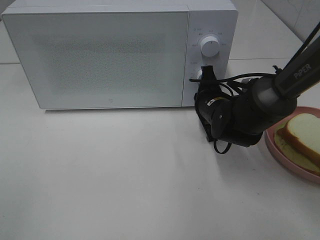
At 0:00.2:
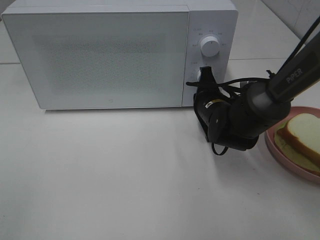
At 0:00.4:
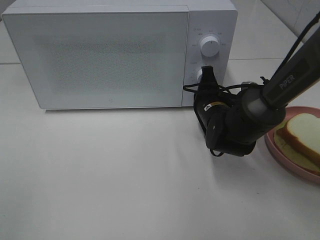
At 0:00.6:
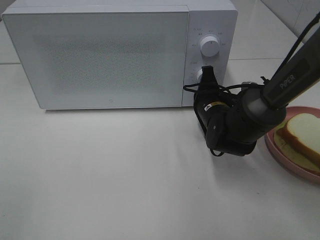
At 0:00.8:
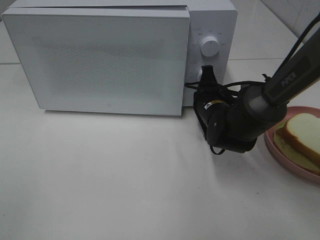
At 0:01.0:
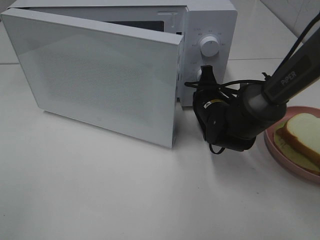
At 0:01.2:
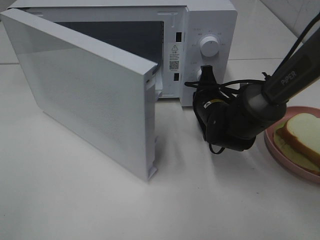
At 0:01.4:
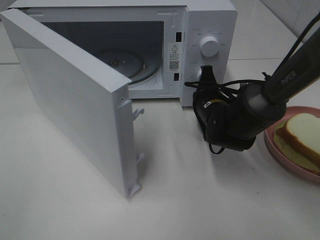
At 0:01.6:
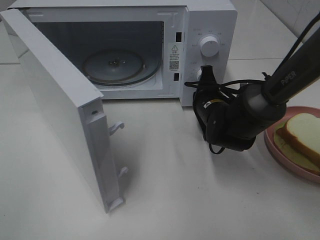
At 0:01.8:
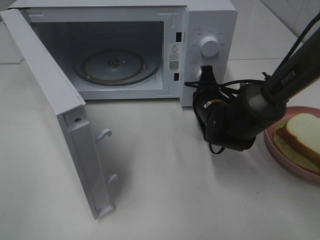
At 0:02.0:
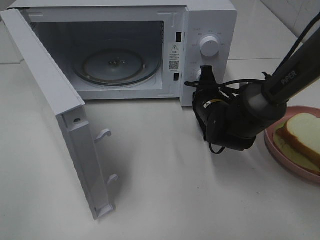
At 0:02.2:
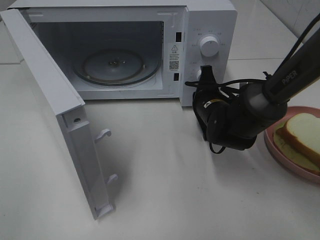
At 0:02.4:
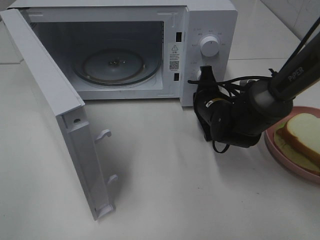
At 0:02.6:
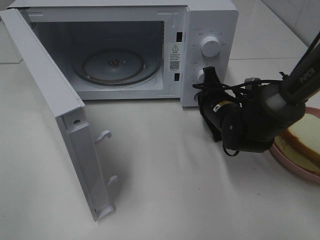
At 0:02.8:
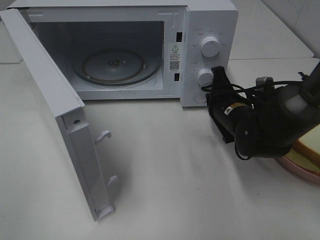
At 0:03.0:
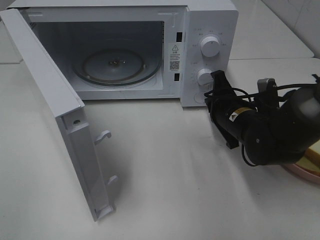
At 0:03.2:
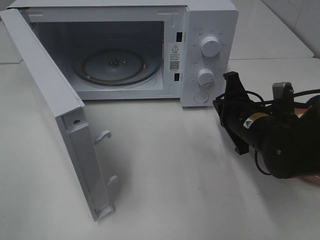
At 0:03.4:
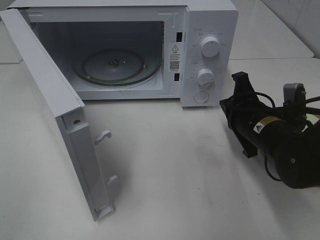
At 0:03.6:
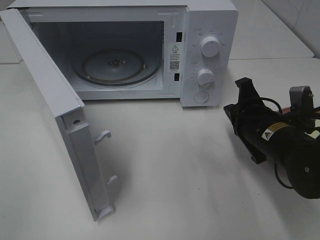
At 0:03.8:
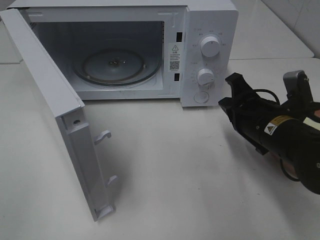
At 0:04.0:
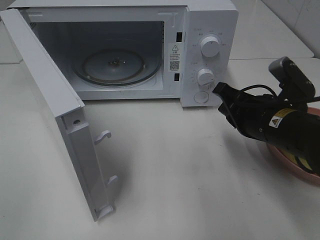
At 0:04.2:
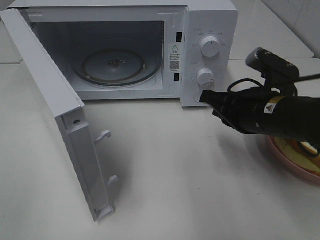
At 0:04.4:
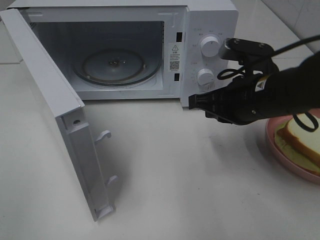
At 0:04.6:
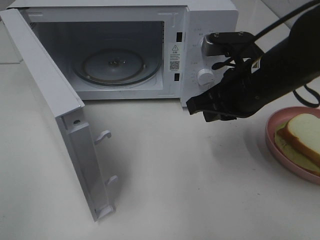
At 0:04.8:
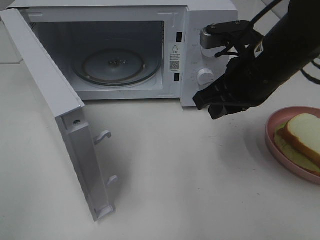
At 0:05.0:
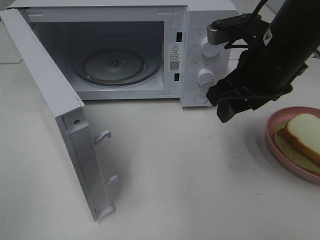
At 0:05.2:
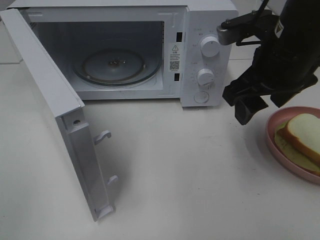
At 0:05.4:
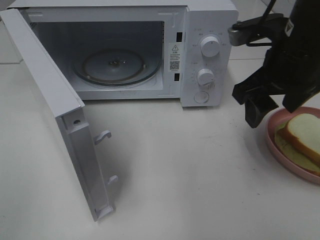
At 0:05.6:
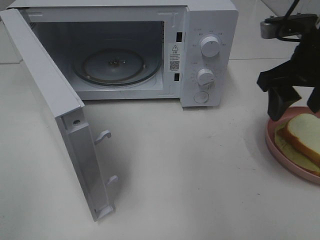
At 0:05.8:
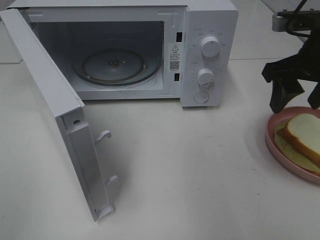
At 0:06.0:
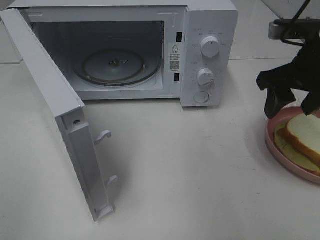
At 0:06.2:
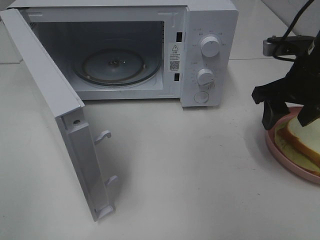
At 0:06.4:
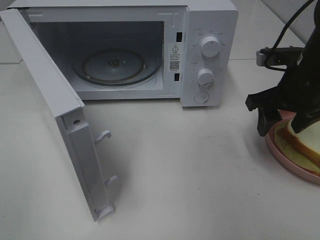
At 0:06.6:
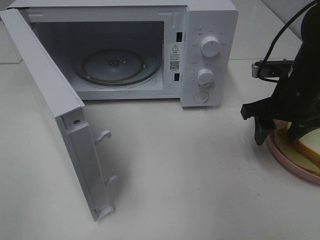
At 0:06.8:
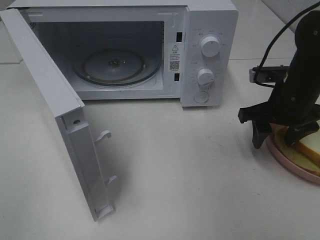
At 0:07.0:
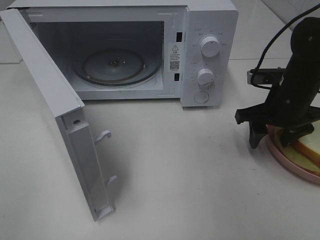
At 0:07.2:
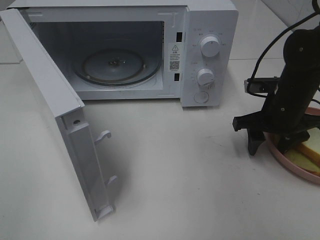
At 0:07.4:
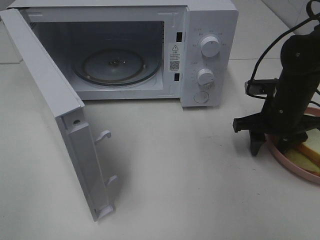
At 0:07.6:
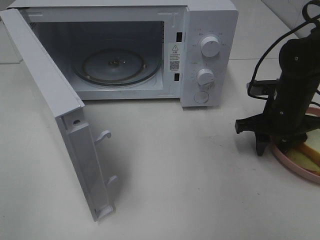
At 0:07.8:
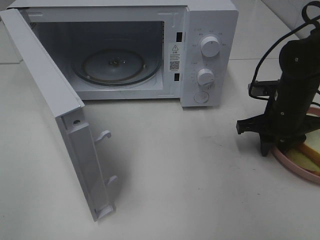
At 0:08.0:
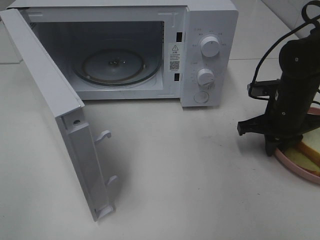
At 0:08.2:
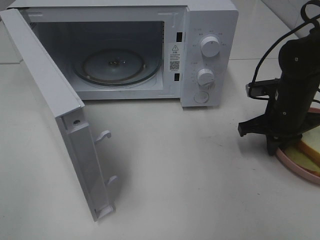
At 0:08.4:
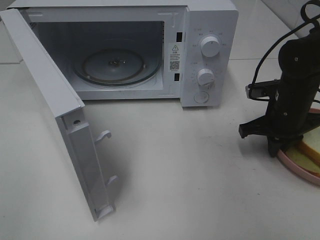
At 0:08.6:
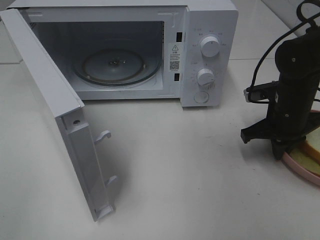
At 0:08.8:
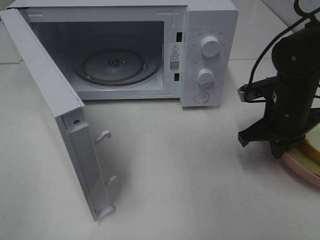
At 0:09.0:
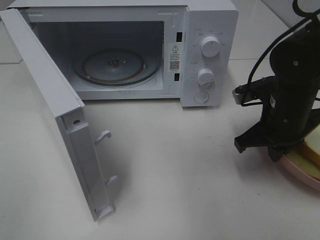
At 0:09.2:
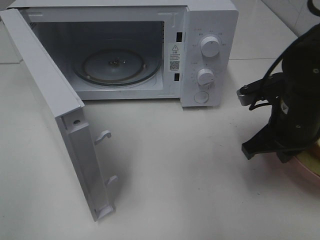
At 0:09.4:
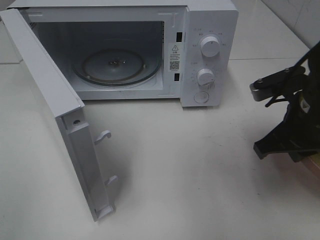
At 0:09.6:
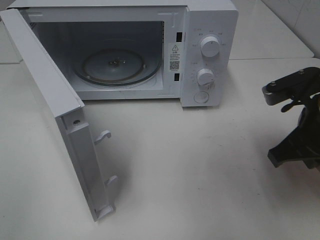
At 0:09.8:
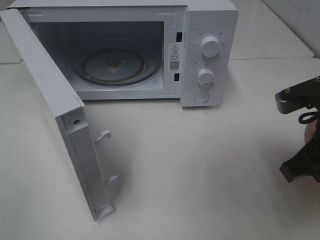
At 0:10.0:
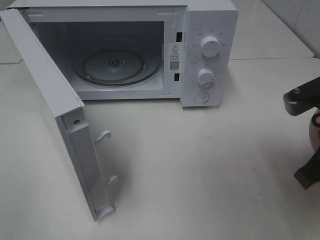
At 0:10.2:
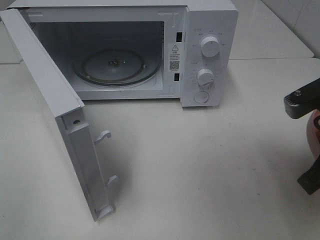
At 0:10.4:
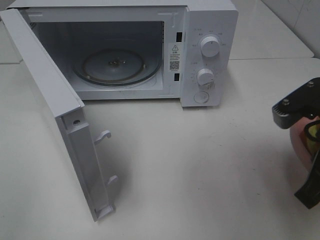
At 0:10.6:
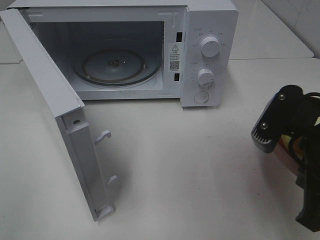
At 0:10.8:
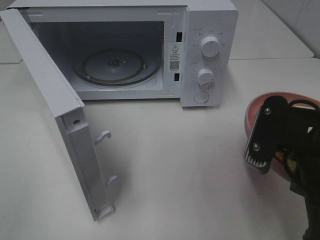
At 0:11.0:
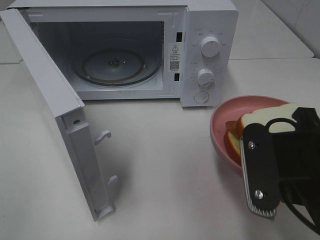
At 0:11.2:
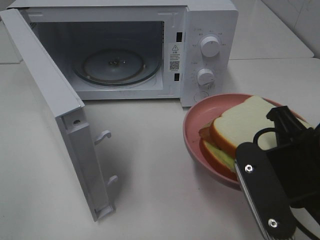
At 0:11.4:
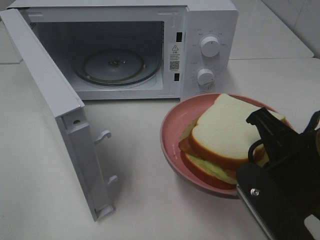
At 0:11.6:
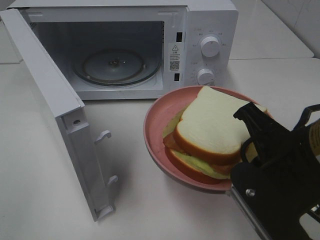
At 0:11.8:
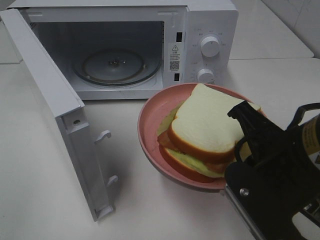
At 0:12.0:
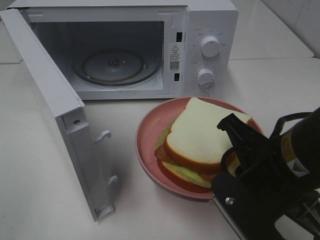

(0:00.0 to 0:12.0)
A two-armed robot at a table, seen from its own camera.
Task of the whole recording: Heat Sandwich.
Step, 0:00.0 - 0:03.0: Right hand: press the switch.
Step, 0:03.2 - 0:08.0: Right hand: grab the plate with the sandwich.
0:01.6 - 0:03.0: The right gripper shifts by roughly 5 cm.
0:03.0 - 0:04.4: The right gripper heads upward, covering roughly 10 cm.
0:04.4 - 0:06.0: The right gripper goes about 10 cm to the right and upward, and opens its fingers.
0:06.0 - 0:07.6: The right gripper travels downward by about 15 cm.
0:07.6 - 0:09.0: The right gripper travels backward by roughly 5 cm, and closes up.
0:09.0 - 0:10.4: The right gripper travels backward and upward by some 15 cm.
0:10.4 - 0:12.0: The right gripper travels to the left by roughly 10 cm.

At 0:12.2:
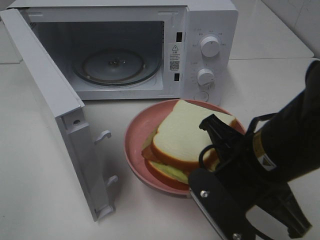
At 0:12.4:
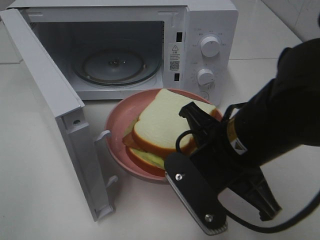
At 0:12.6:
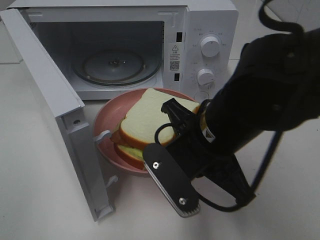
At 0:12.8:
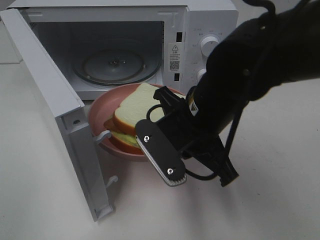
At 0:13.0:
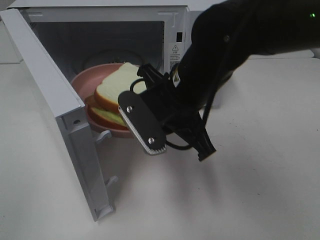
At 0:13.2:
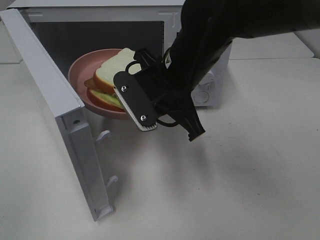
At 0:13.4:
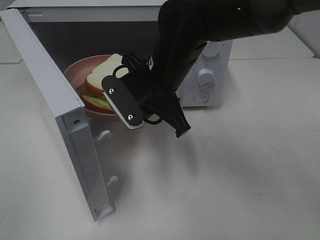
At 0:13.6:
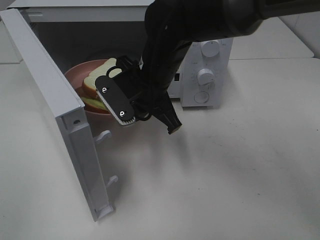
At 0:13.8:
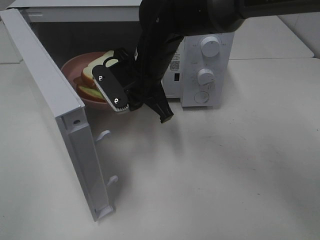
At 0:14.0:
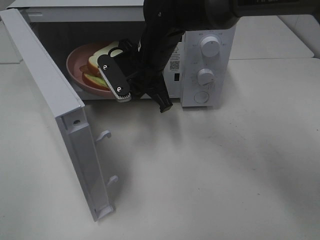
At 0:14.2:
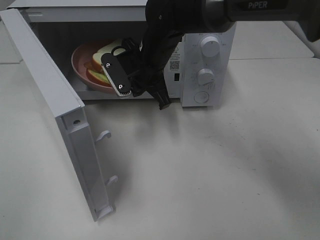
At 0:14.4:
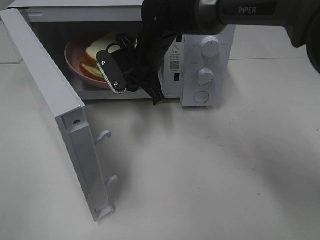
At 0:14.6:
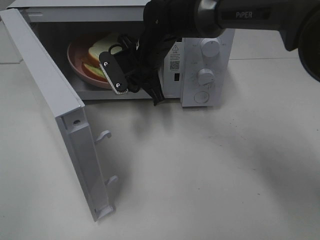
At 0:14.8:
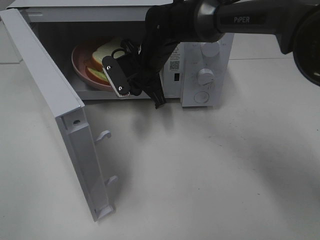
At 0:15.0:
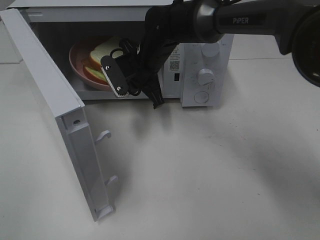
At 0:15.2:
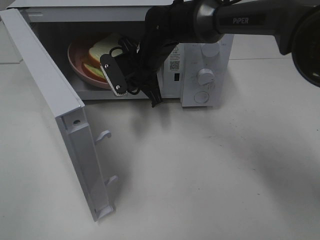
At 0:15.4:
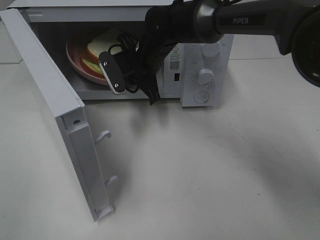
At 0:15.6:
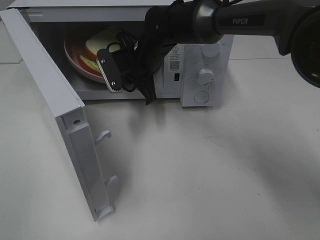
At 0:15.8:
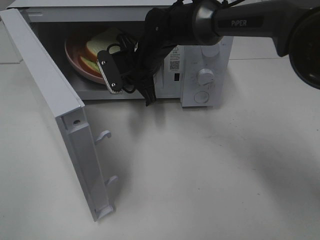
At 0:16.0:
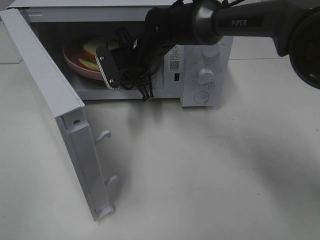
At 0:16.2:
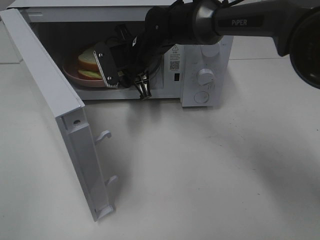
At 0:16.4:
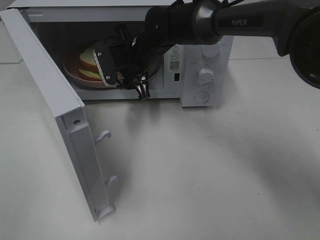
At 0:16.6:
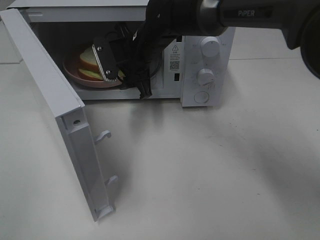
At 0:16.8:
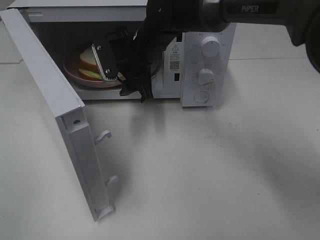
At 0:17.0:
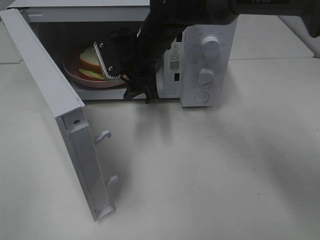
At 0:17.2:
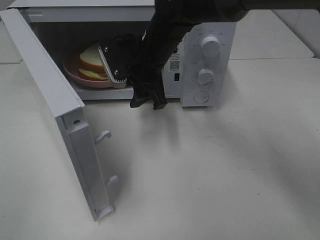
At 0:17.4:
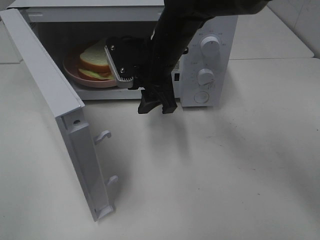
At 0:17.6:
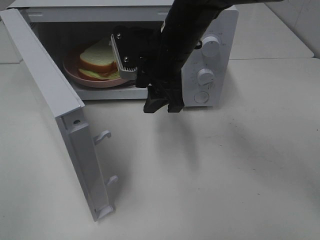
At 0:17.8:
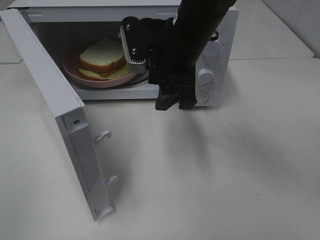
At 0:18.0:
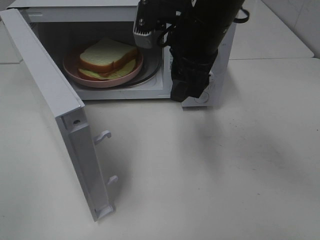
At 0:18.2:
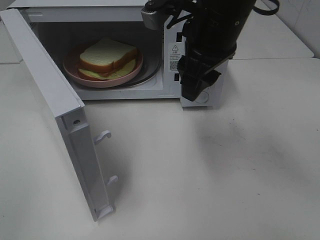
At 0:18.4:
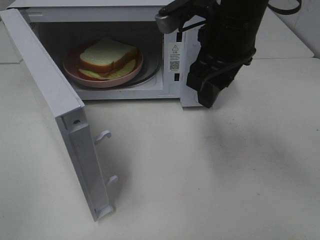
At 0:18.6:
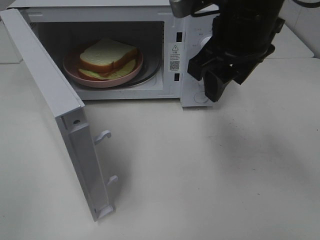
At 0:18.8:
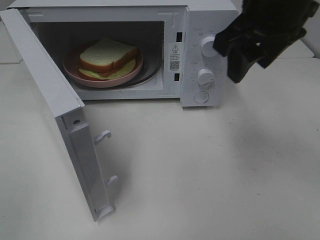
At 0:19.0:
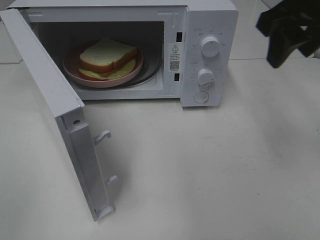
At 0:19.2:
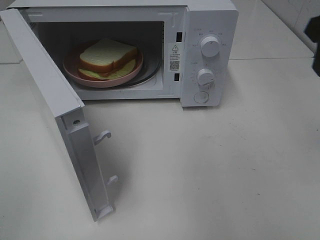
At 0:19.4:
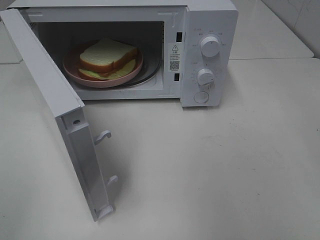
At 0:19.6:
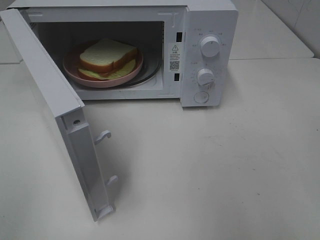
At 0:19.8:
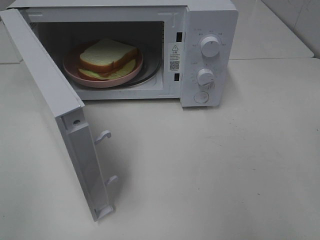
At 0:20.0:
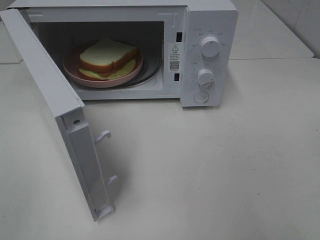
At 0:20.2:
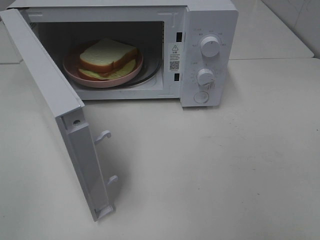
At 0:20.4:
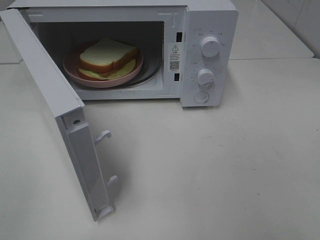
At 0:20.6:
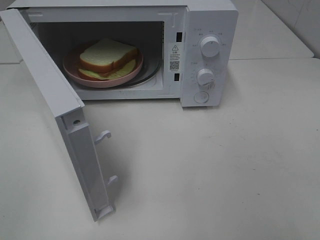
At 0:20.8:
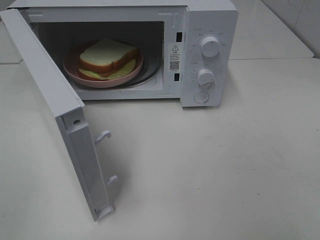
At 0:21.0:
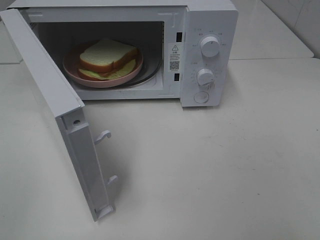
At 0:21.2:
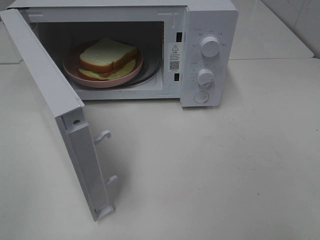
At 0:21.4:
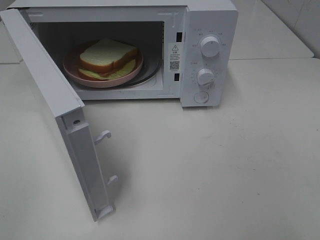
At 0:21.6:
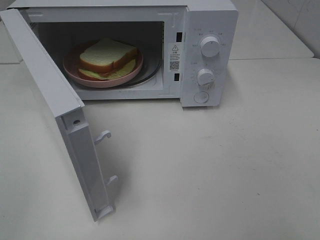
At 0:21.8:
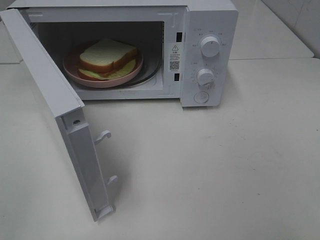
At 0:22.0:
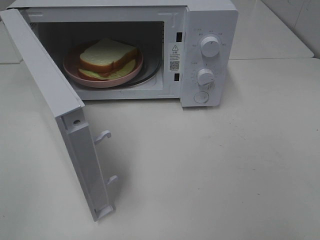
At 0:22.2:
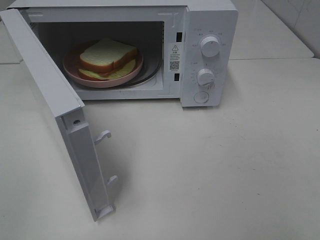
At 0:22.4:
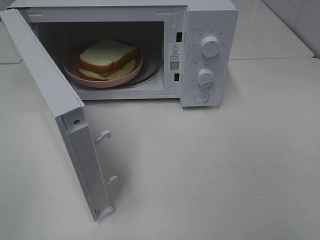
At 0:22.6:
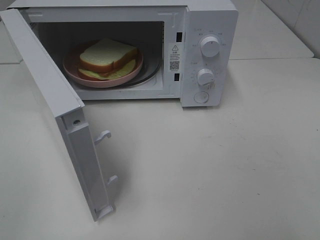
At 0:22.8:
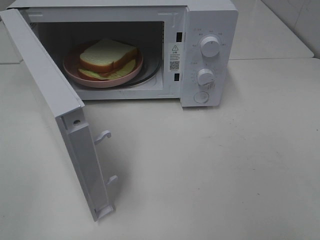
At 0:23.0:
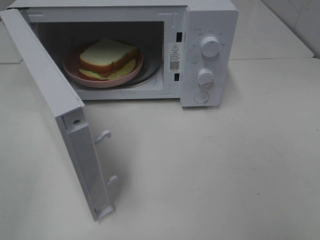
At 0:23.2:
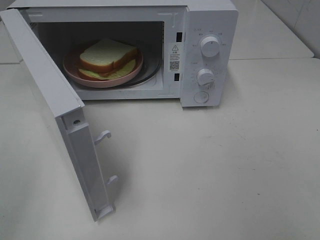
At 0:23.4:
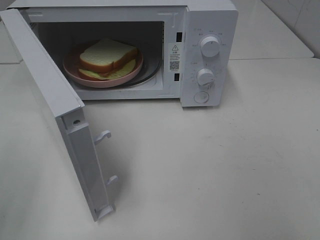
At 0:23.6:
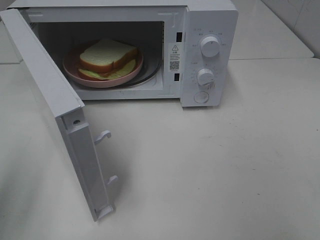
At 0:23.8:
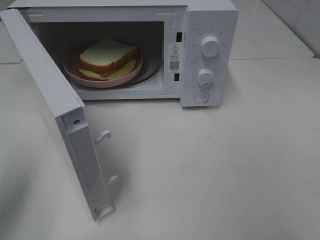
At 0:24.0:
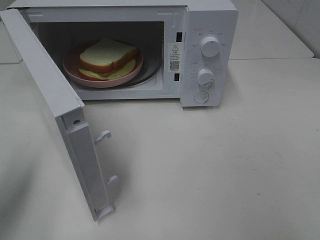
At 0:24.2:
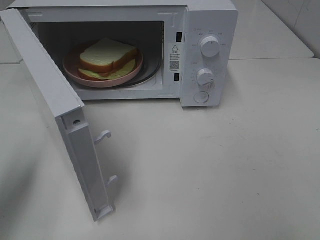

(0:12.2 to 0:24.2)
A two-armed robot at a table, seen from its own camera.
Task of the whole recording: Heat Sandwich.
Step, 0:12.2 - 0:17.2: Right hand: place the plate in the microwave.
0:12.2 - 0:13.8: The right gripper travels forward and to the left by some 25 cm.
0:13.8 - 0:15.2: The right gripper heads forward, covering some 5 cm.
0:15.2 - 0:16.6: The right gripper opens up.
0:16.6 - 0:18.2: The right gripper shifts about 20 cm backward, upward and to the right.
0:18.2 - 0:19.8: The right gripper travels to the right and backward by roughly 25 cm.
0:21.2 - 0:22.6: Both grippers stay about where they are.
0:22.6 - 0:24.2: The left gripper travels forward by approximately 15 cm, and closes its fingers.
